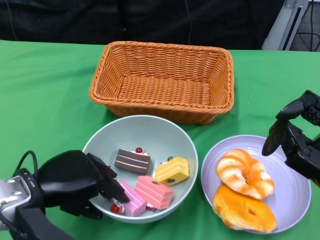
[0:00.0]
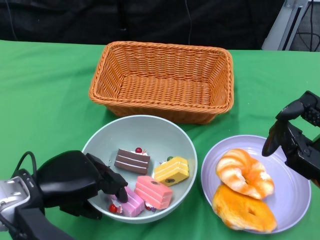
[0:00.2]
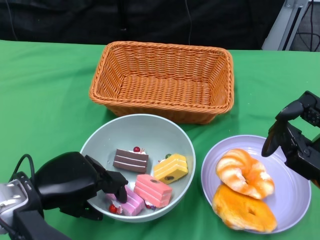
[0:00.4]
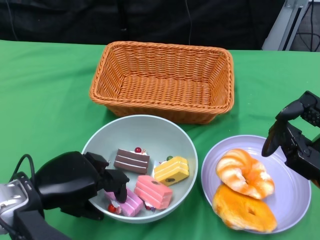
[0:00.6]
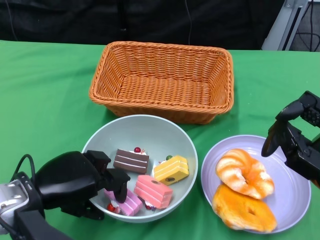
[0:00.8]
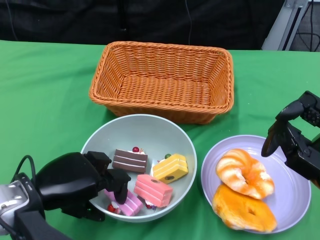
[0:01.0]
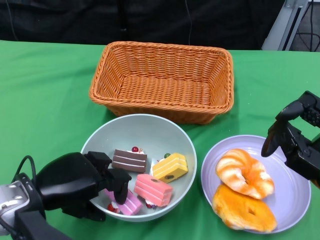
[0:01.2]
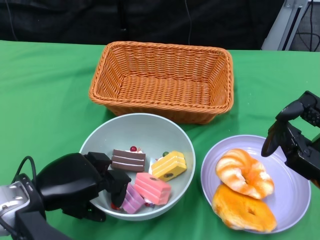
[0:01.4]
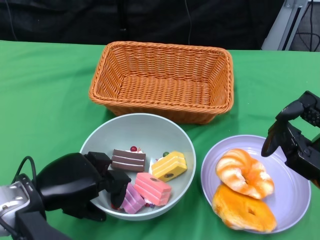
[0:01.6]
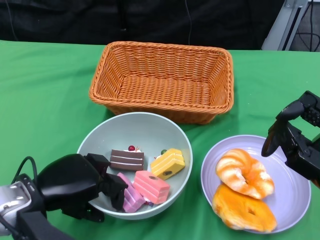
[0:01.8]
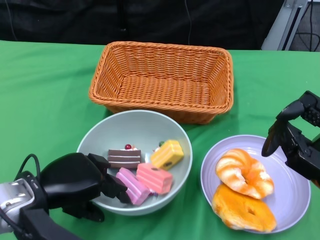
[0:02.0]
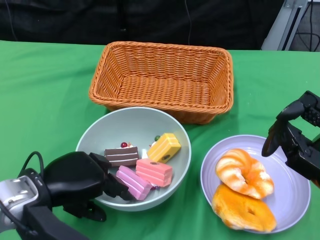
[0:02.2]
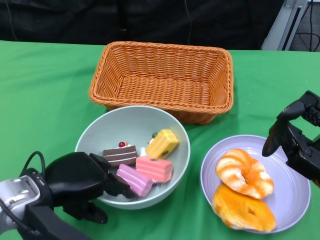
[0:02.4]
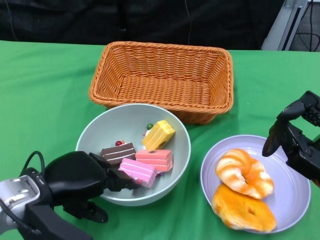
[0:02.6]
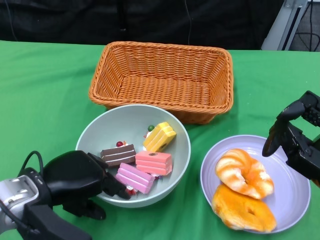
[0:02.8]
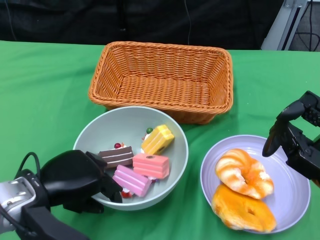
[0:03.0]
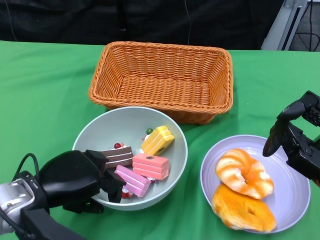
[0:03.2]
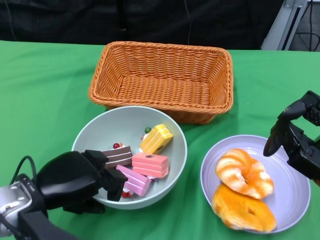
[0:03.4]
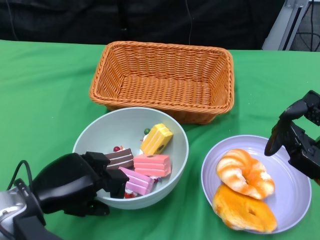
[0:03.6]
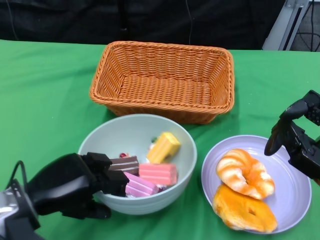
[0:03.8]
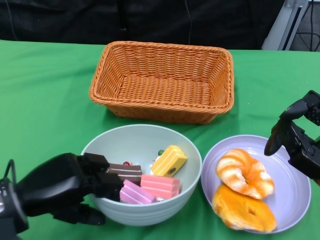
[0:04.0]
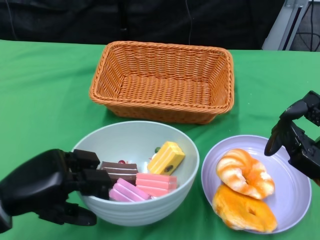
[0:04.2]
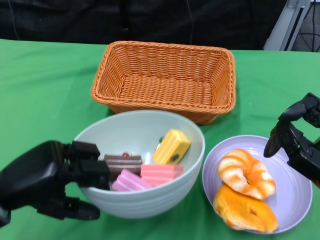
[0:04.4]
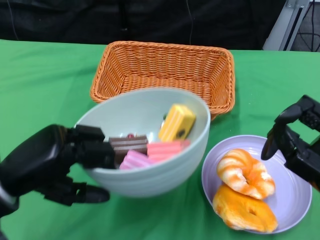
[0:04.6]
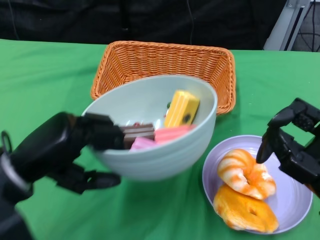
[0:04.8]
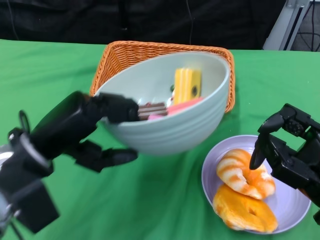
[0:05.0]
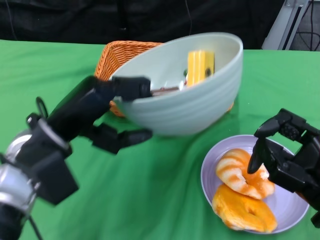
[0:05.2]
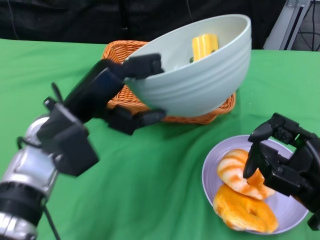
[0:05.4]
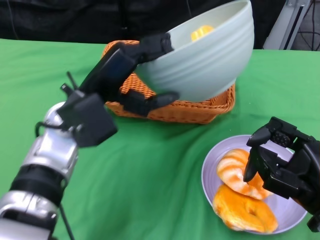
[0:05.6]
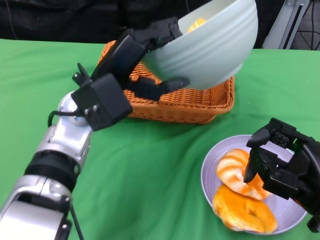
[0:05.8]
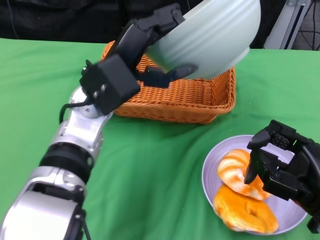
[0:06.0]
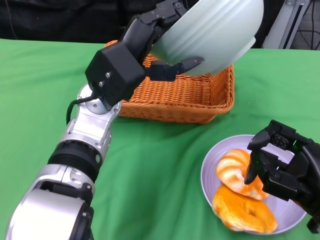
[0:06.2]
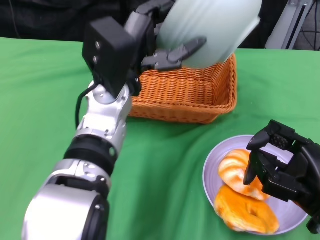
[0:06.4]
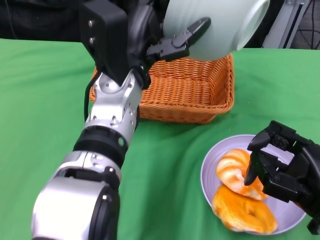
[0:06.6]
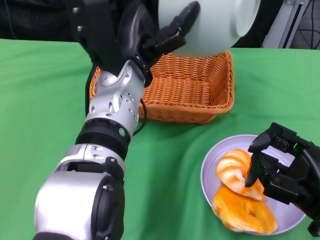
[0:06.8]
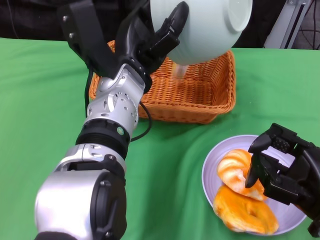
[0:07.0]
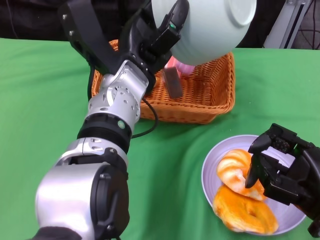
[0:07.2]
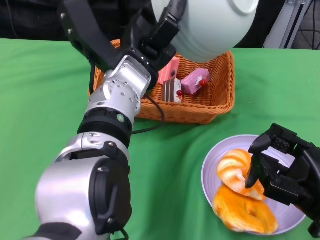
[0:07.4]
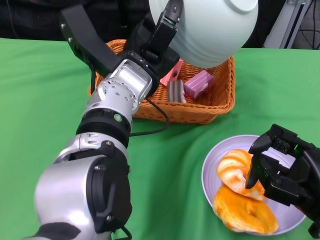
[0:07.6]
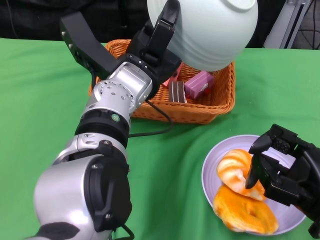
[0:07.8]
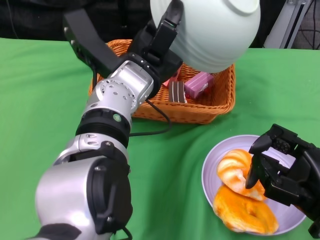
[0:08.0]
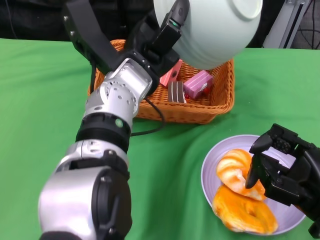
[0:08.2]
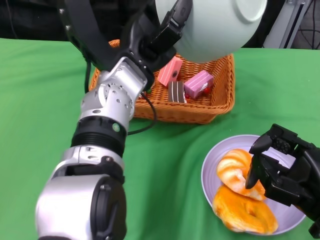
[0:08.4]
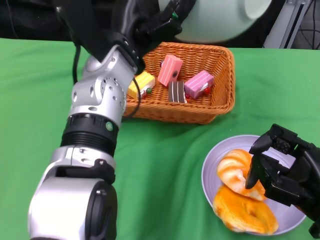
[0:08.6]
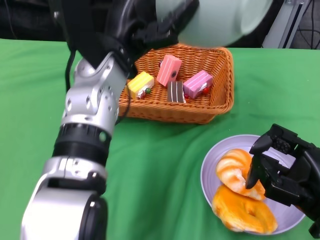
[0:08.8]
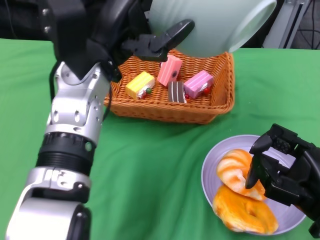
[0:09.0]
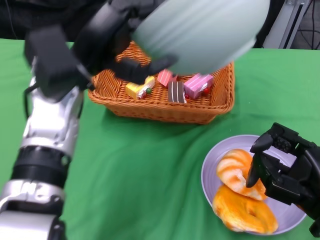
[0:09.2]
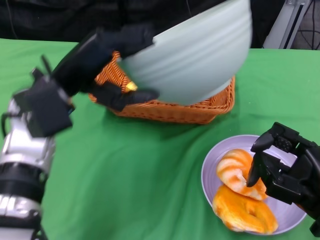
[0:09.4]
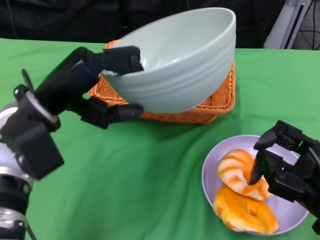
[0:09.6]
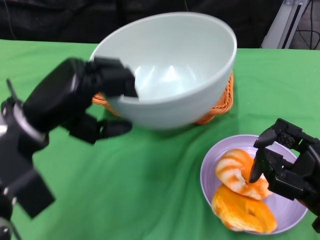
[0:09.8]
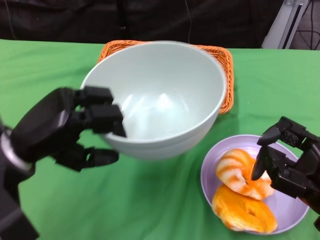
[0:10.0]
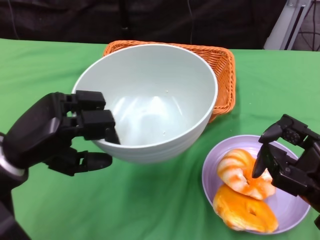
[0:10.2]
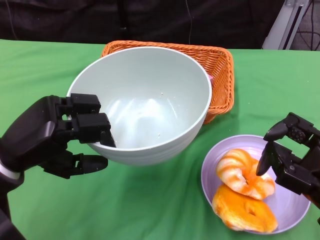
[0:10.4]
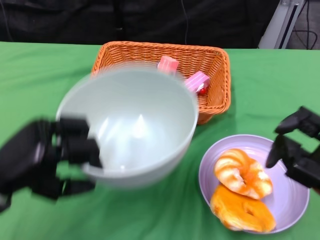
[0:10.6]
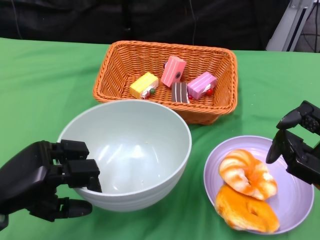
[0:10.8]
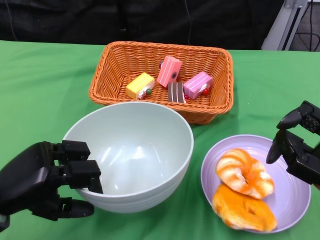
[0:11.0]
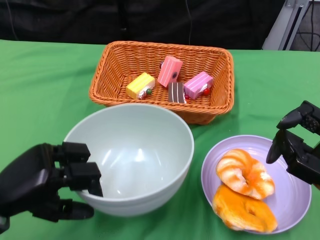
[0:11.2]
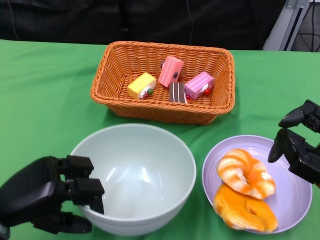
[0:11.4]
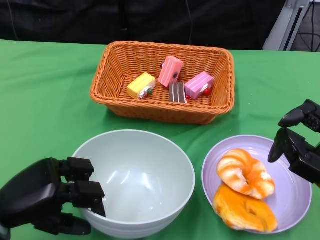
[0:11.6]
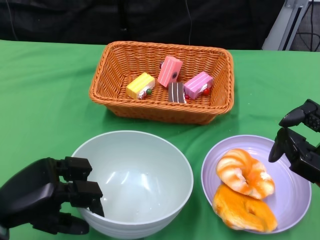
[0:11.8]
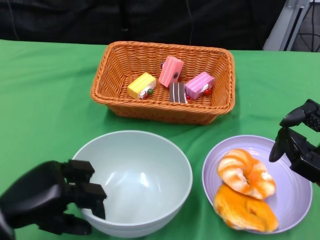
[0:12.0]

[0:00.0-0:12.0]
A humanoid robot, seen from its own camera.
Step, 0:00.0 to 0:04.0: Grasp the bowl with the left gripper.
Step, 0:04.2 to 0:08.8: Pour the cake into the basket with the left gripper.
0:00.0 to 0:03.0: The hands stay close to where they were, moving slightly.
0:03.0 to 0:04.4: The left hand shifts by some 5 cm.
0:04.4 to 0:06.0: The left hand is displaced to the right, forward and upward by some 20 cm.
0:06.0 to 0:07.6: The left hand shifts by some 5 cm.
0:07.6 to 0:09.0: The left hand shifts approximately 5 cm to the left.
0:09.0 to 0:10.4: The left hand shifts some 15 cm to the left, backward and downward.
0:10.4 to 0:12.0: The left hand goes roughly 5 cm downward.

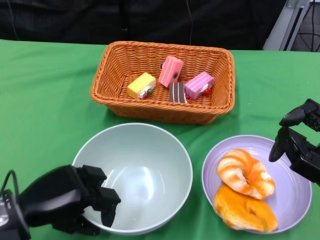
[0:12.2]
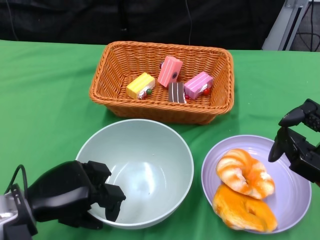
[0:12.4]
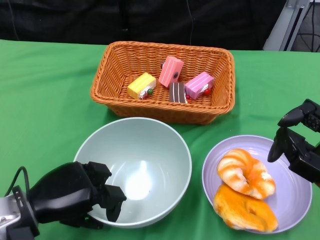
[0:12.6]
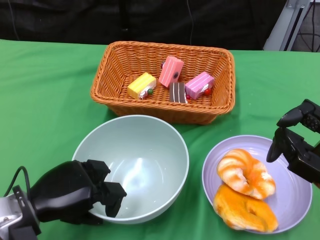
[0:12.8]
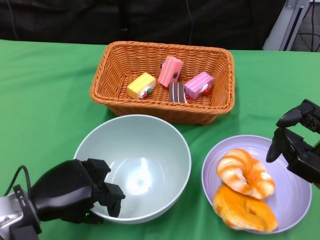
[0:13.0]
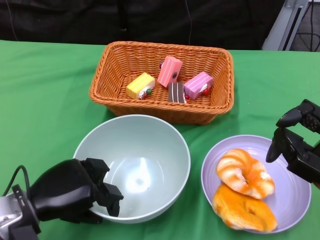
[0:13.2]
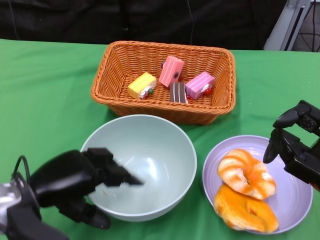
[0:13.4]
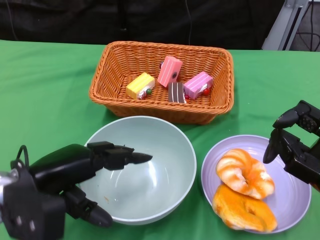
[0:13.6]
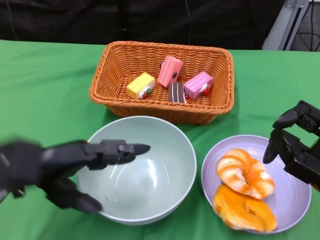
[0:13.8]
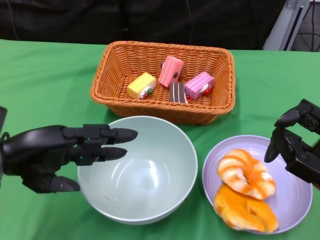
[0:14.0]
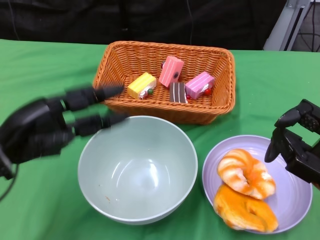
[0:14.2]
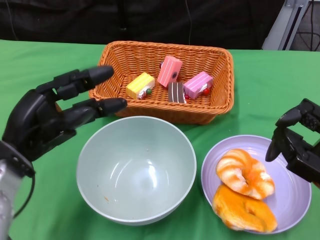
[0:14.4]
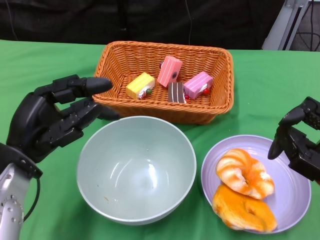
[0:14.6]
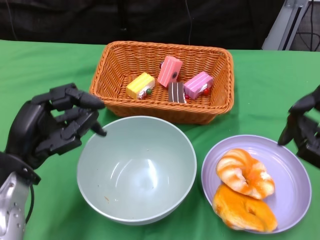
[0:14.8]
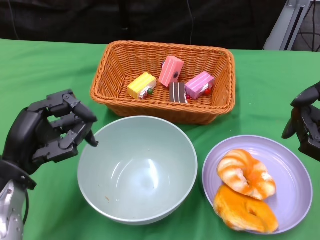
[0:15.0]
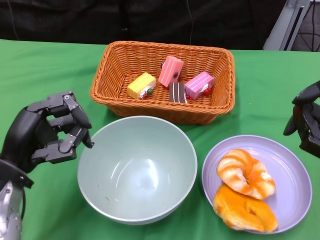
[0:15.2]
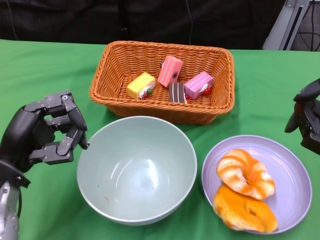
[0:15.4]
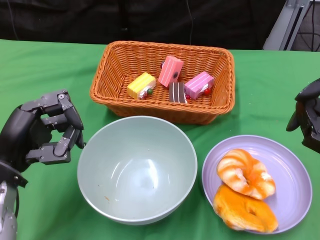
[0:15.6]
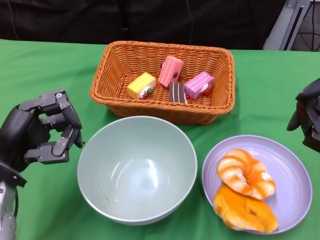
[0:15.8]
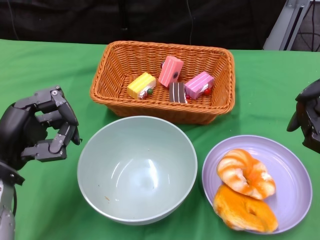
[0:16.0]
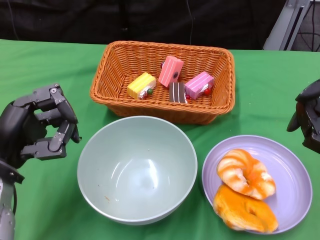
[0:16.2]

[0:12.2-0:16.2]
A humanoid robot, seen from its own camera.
0:12.2 to 0:13.6: The left hand changes place by roughly 5 cm.
0:14.8 to 0:16.2: The hands stay close to where they were, moving slightly.

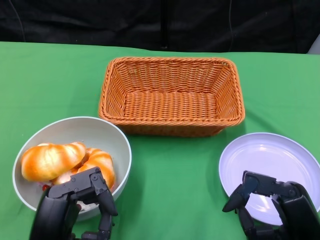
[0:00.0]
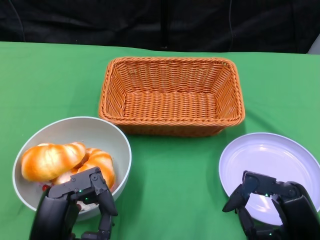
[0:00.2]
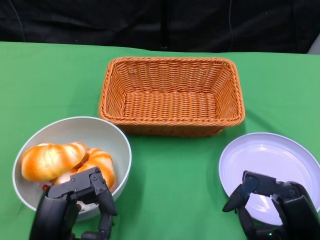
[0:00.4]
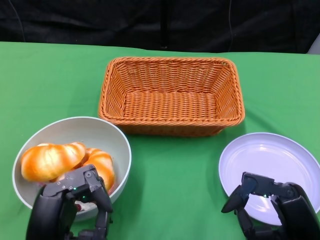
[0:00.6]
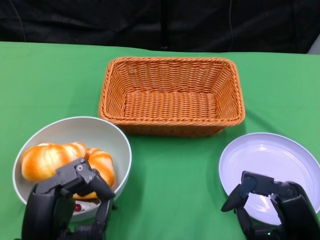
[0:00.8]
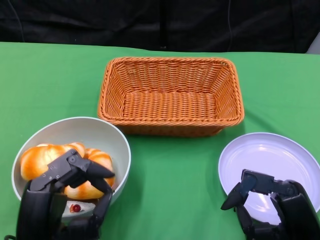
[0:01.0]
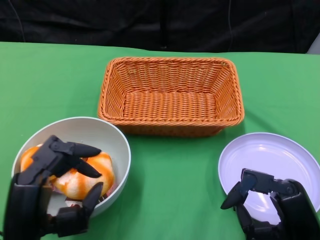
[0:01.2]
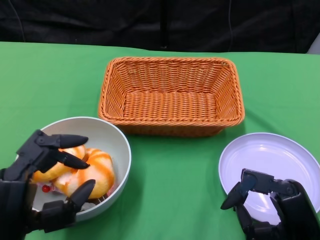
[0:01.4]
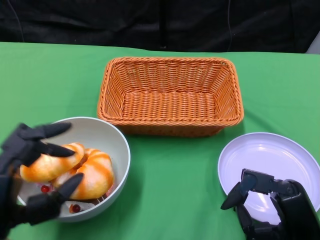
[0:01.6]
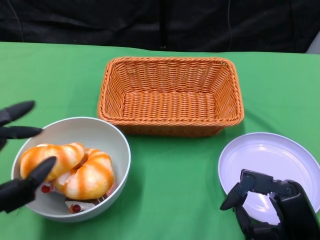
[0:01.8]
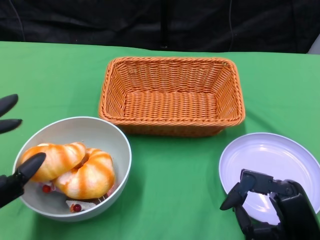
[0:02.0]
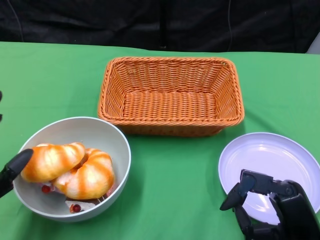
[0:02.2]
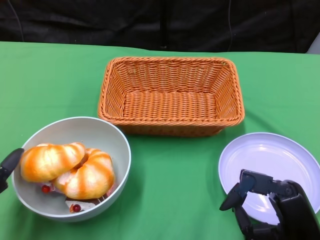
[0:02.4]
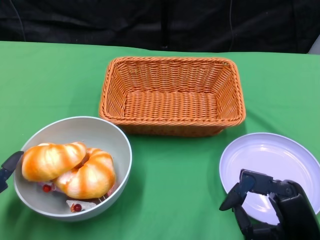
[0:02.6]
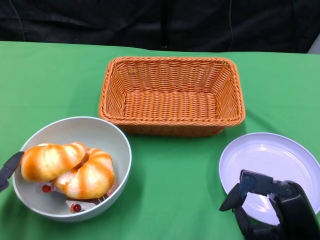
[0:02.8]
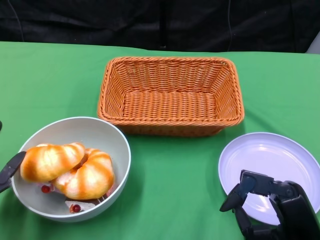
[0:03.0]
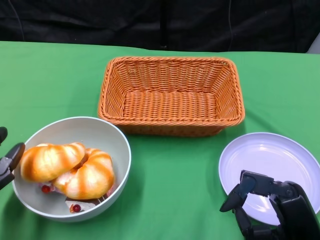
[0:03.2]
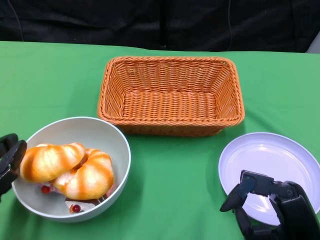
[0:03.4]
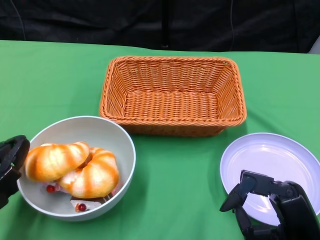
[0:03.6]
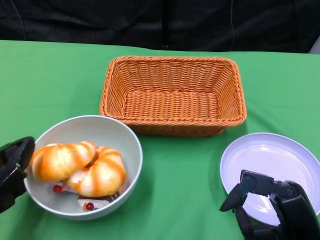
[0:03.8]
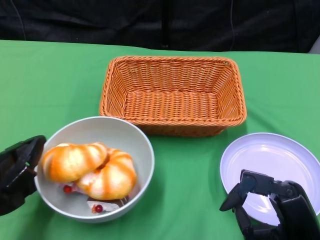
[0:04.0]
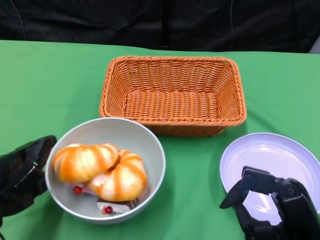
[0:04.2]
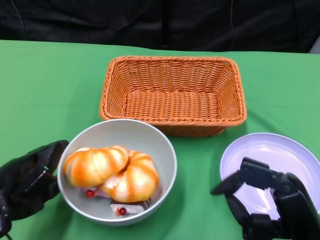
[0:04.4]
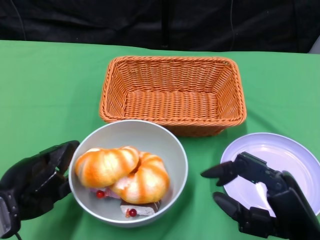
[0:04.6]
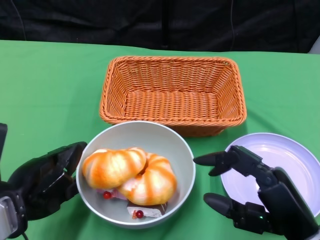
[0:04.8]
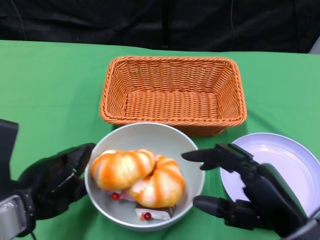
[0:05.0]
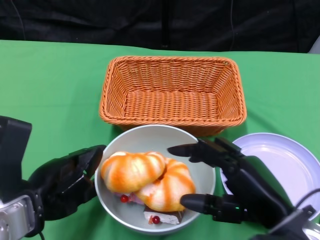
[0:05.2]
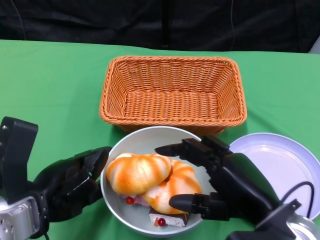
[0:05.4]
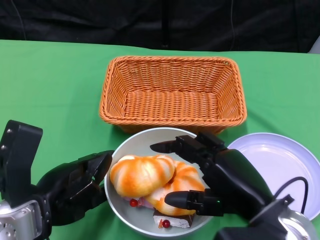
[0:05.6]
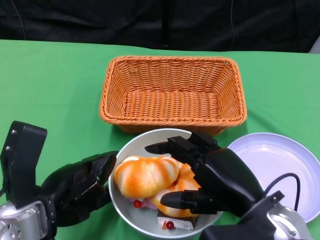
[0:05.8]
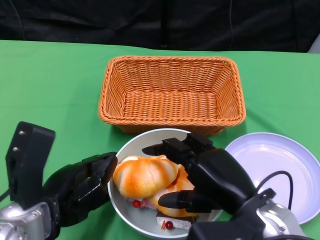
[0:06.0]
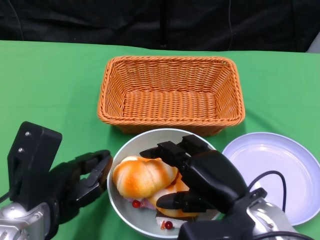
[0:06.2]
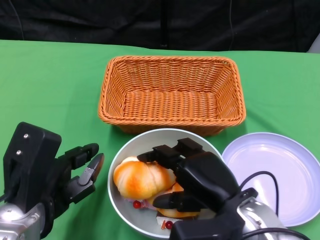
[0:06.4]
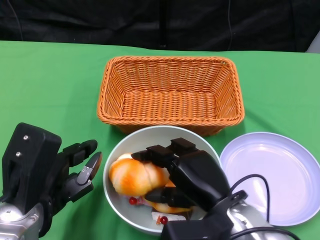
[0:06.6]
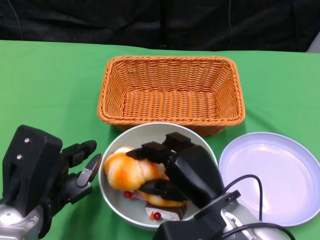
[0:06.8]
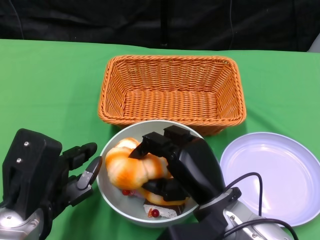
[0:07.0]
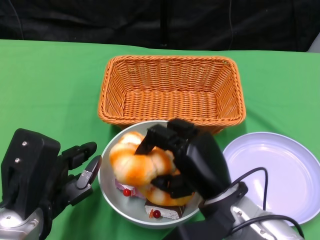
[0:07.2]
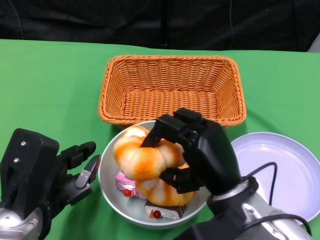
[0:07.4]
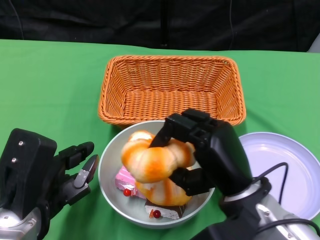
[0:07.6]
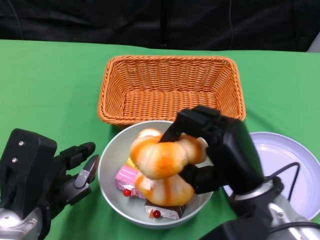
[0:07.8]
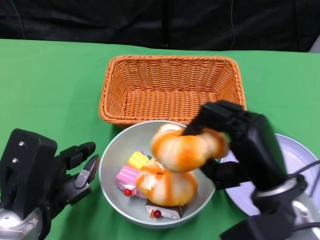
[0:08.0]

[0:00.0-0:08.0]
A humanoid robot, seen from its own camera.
Step, 0:00.0 to 0:05.8: Push the bowl to the center of the table using the left gripper.
0:01.6 to 0:03.2: The left hand travels to the left by about 5 cm.
0:03.2 to 0:04.8: The left hand goes approximately 5 cm to the right.
0:04.8 to 0:06.4: The right hand travels to the left and forward by some 10 cm.
